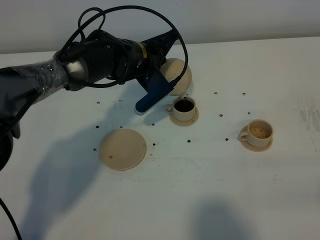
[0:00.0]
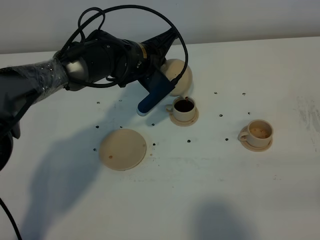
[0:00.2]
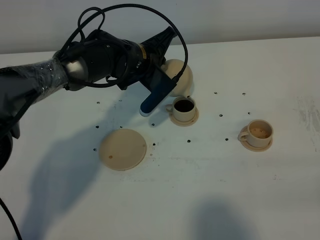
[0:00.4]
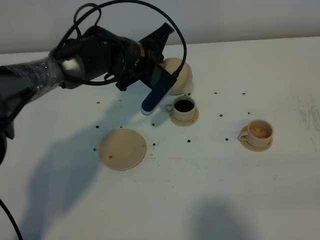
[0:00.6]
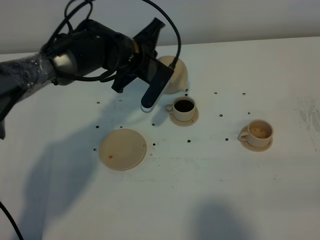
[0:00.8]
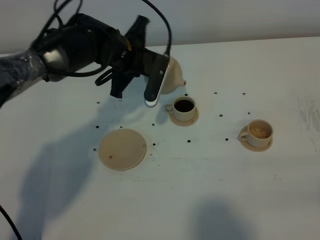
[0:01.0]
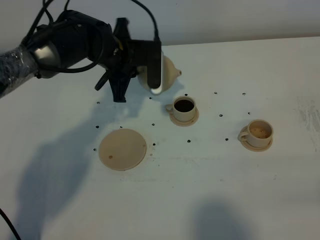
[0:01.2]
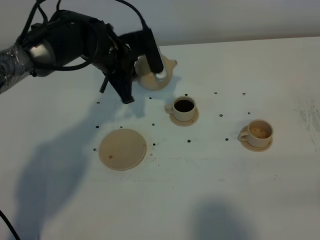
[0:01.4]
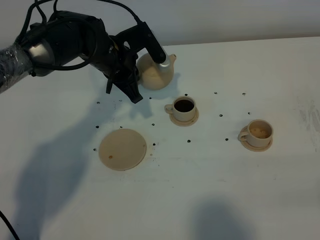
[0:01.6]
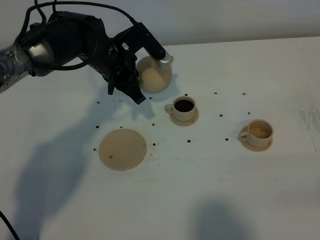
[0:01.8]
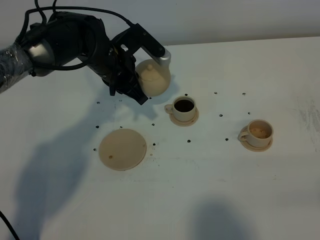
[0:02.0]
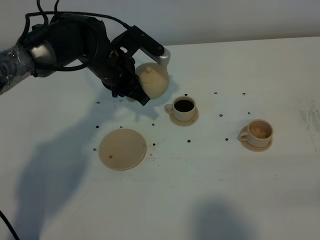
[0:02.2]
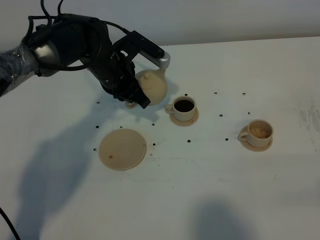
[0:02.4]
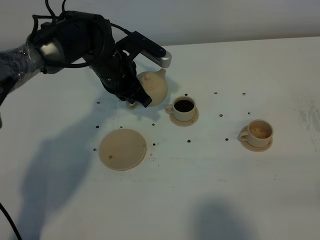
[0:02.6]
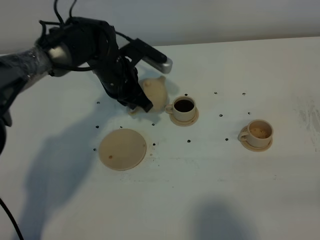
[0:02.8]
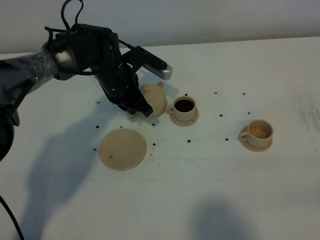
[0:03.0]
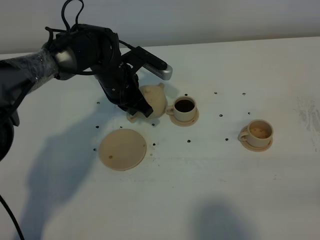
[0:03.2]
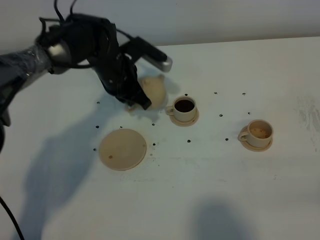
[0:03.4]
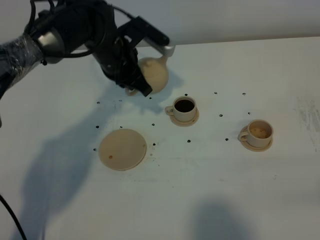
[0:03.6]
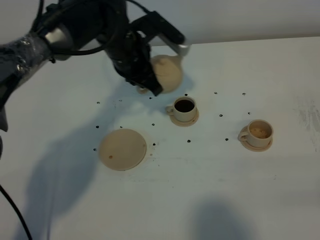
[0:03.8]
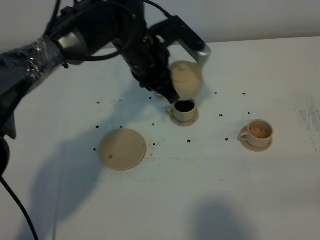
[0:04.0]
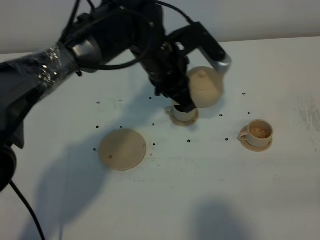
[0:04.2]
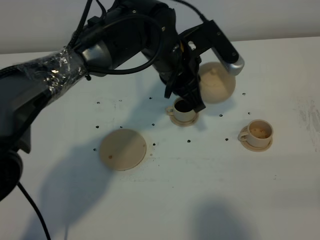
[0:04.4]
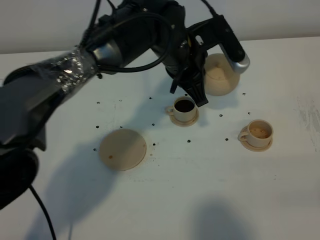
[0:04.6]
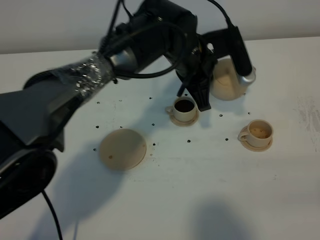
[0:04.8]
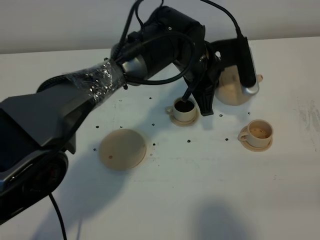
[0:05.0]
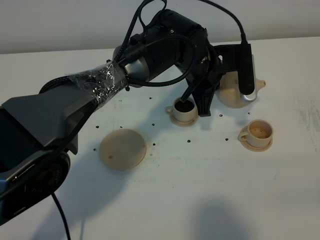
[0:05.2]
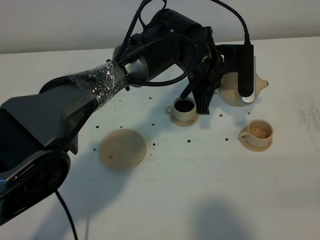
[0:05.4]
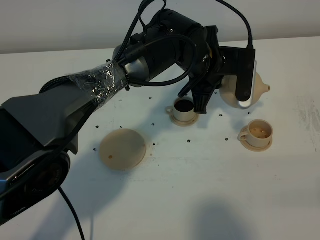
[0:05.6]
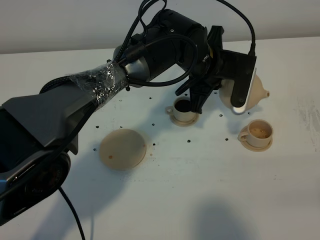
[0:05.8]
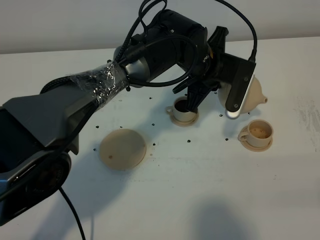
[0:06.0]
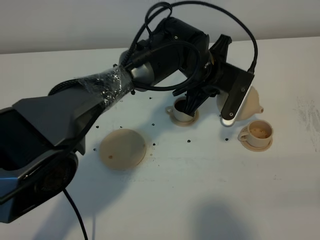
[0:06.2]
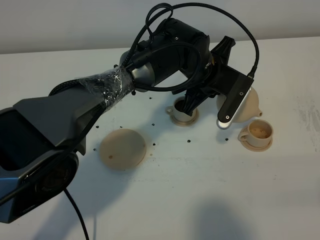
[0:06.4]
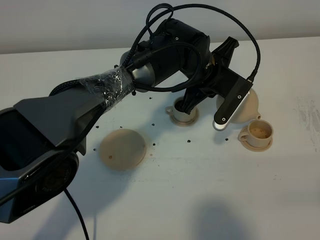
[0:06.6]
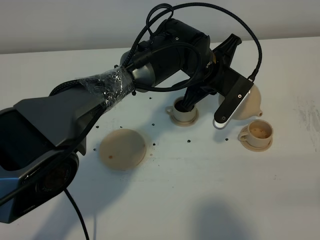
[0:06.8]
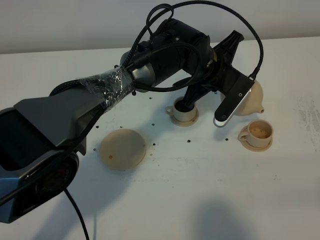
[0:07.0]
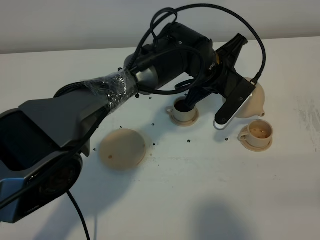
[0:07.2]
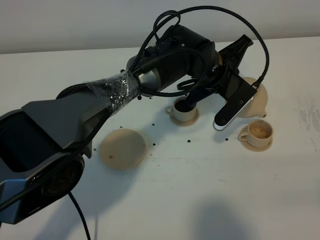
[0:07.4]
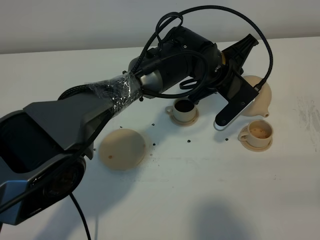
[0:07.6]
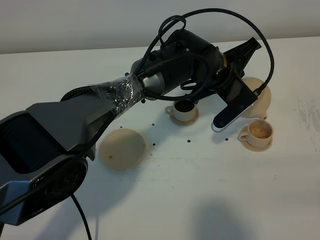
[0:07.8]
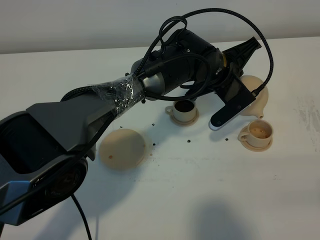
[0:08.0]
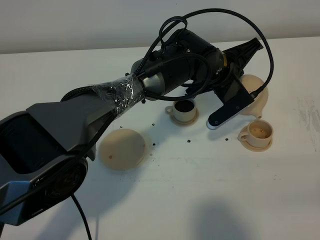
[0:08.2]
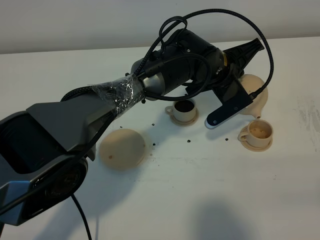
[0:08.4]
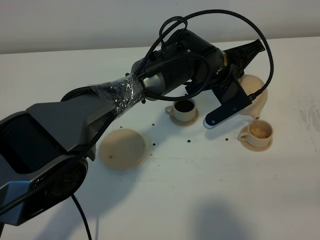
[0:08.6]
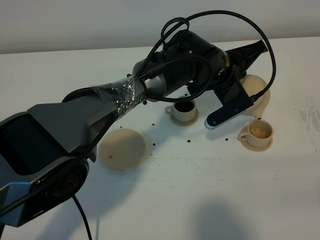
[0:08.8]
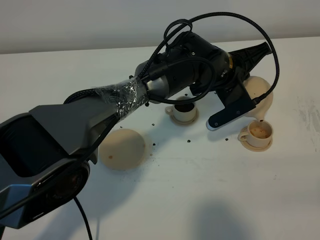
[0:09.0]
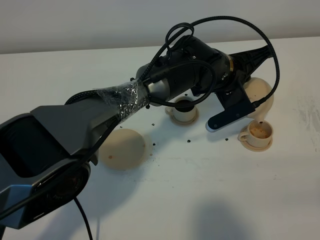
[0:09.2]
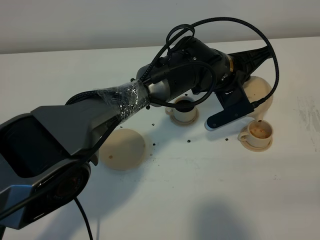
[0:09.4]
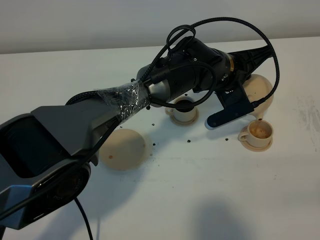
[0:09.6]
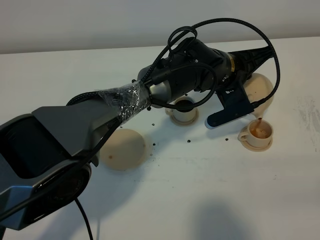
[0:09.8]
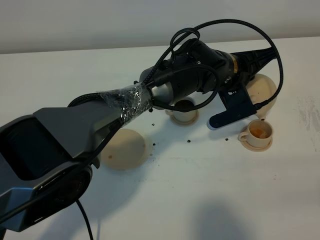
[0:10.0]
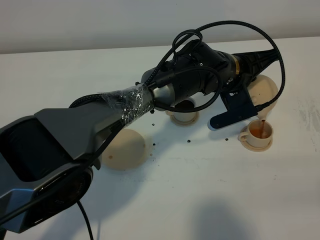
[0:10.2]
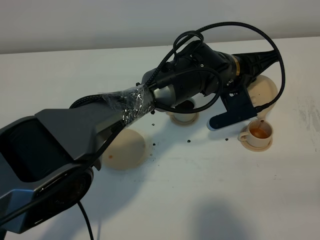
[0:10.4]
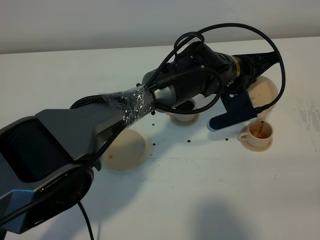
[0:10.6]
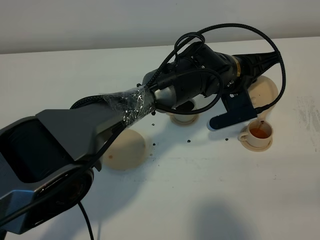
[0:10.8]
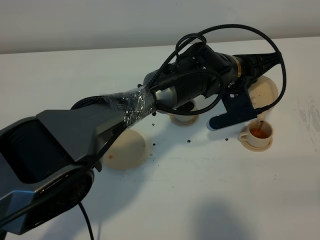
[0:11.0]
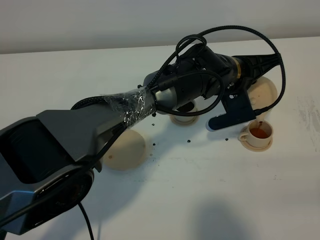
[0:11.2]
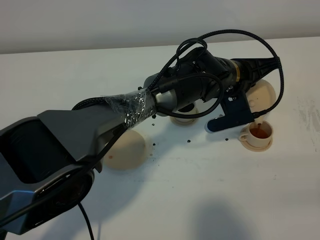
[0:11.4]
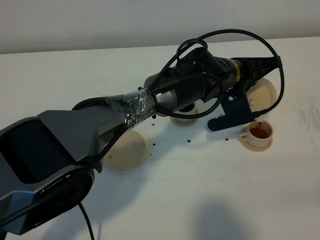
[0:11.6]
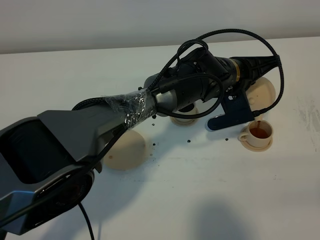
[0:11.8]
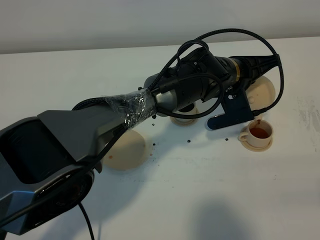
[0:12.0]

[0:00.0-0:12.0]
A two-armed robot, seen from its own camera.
Task of the whole recording: grasp the brown teapot and pour the tea into the two brown teacups one by one, put the brown teapot back in its original place.
0:00.0 to 0:01.6: The left gripper shifts by roughly 5 cm.
0:01.6 to 0:03.0: The left gripper moves downward, some 5 cm.
0:03.0 to 0:04.4: The left gripper travels to the right, upward and backward by approximately 15 cm.
0:04.4 to 0:06.0: The left gripper changes place by about 5 cm.
0:07.6 to 0:09.0: The grippers make only small movements.
0:09.0 to 0:10.4: The grippers move only a little.
0:10.4 to 0:12.0: Neither gripper changes place.

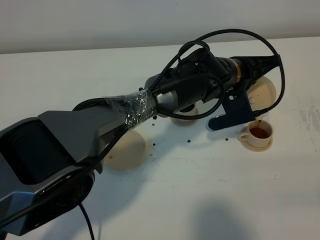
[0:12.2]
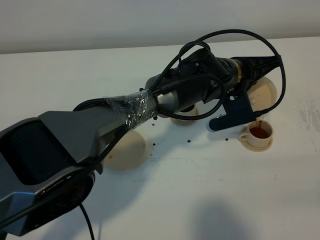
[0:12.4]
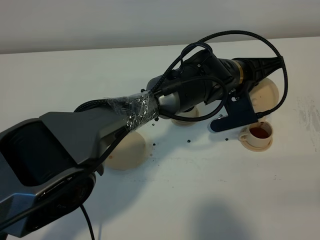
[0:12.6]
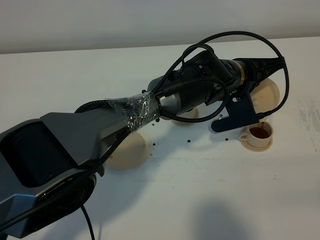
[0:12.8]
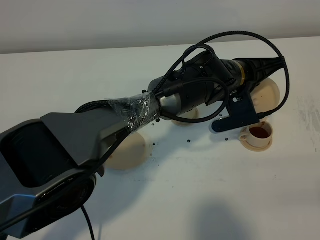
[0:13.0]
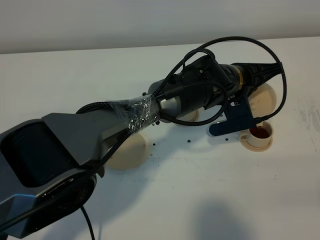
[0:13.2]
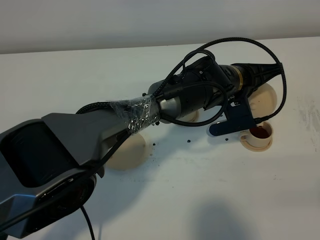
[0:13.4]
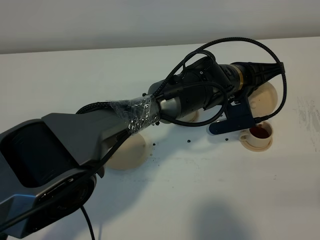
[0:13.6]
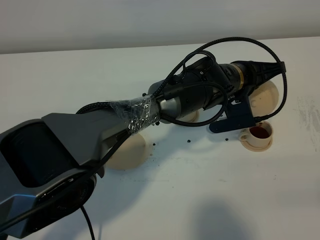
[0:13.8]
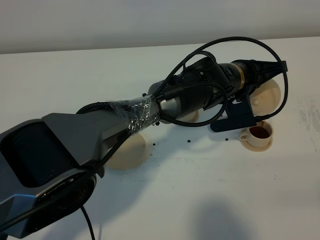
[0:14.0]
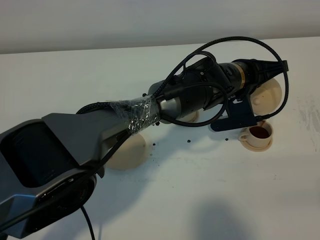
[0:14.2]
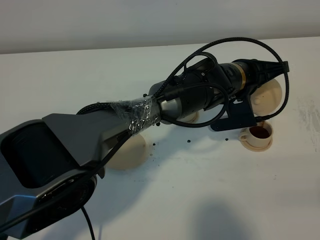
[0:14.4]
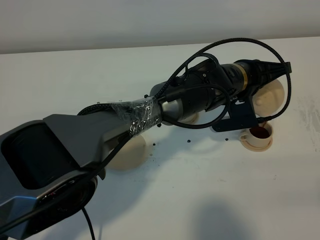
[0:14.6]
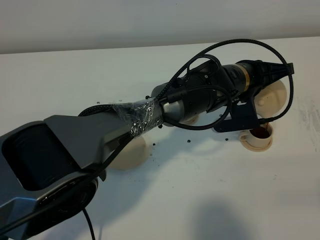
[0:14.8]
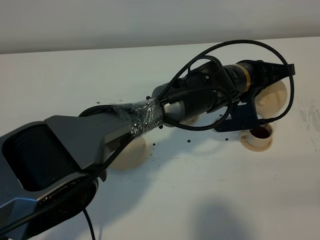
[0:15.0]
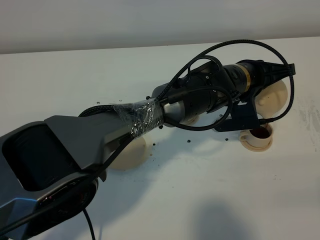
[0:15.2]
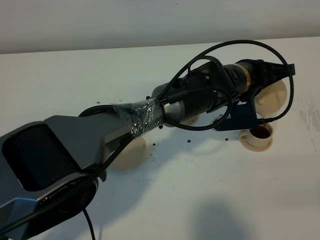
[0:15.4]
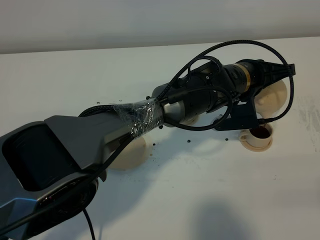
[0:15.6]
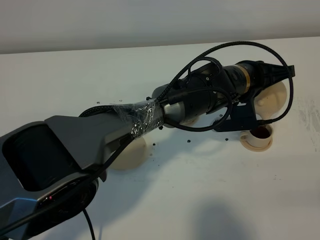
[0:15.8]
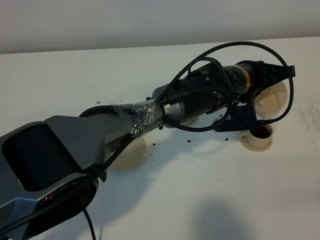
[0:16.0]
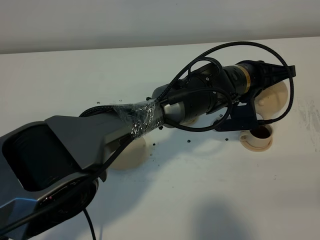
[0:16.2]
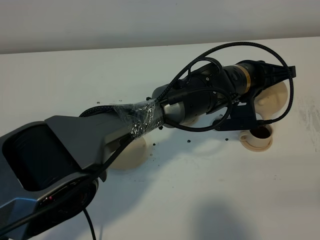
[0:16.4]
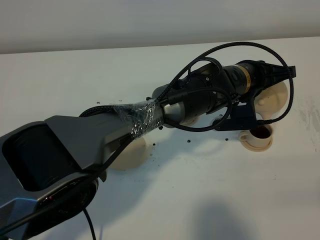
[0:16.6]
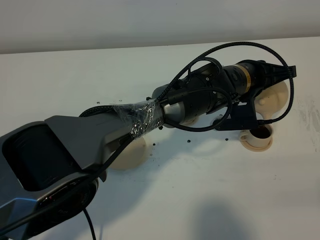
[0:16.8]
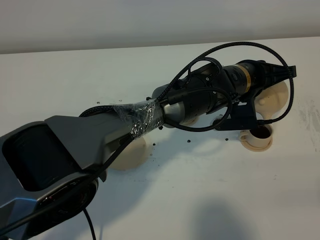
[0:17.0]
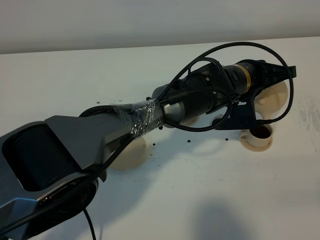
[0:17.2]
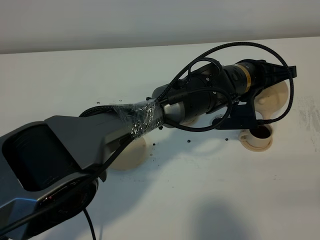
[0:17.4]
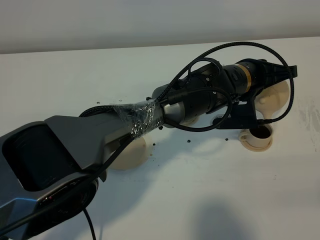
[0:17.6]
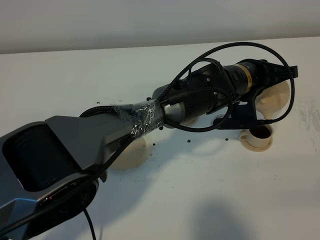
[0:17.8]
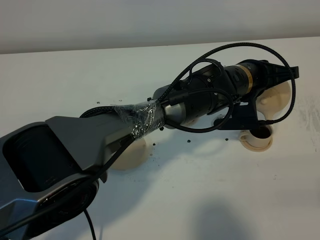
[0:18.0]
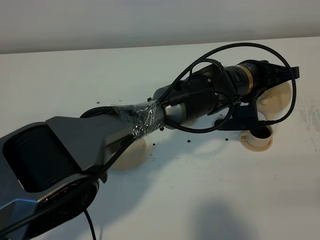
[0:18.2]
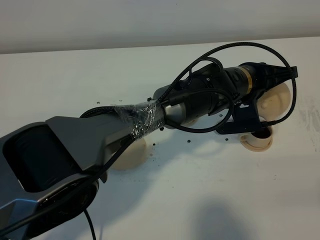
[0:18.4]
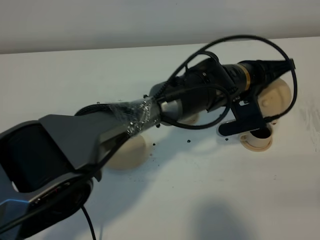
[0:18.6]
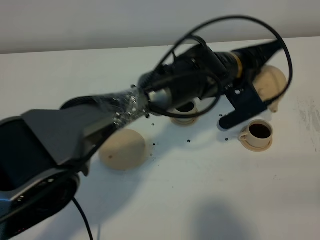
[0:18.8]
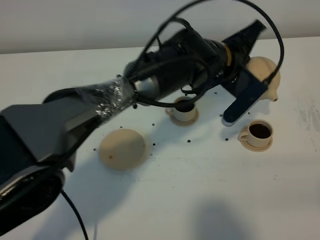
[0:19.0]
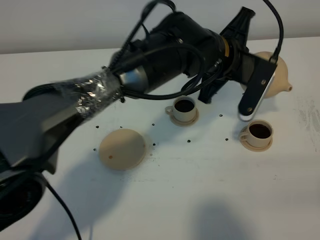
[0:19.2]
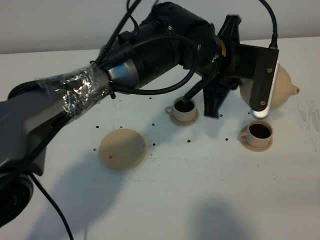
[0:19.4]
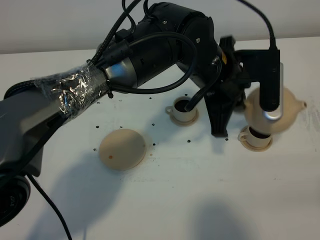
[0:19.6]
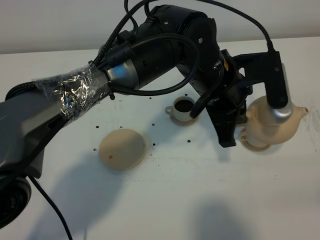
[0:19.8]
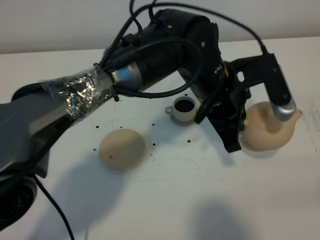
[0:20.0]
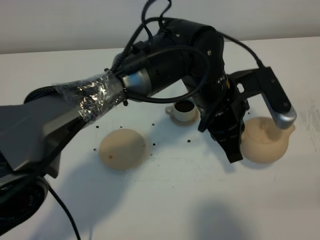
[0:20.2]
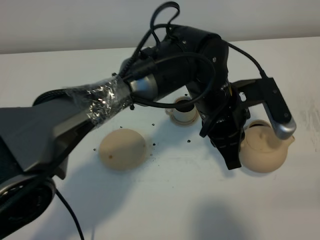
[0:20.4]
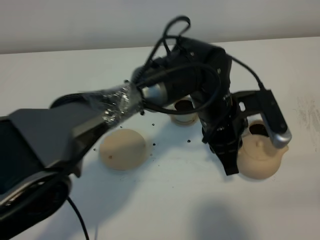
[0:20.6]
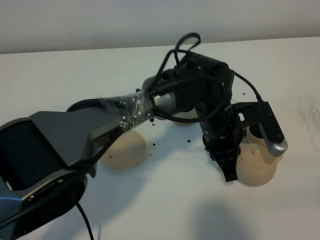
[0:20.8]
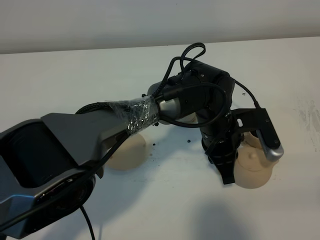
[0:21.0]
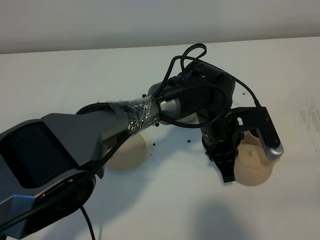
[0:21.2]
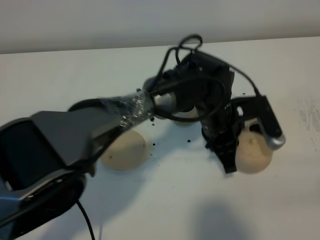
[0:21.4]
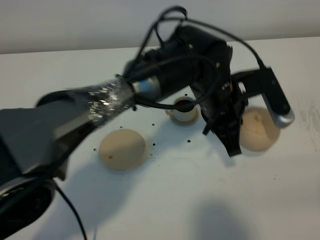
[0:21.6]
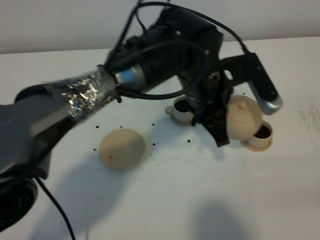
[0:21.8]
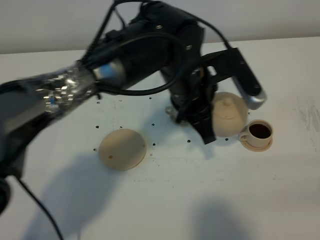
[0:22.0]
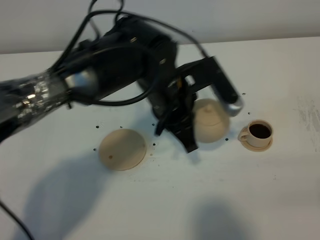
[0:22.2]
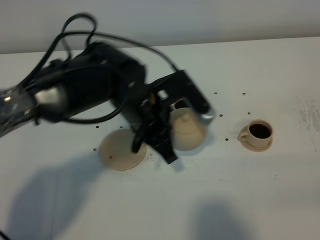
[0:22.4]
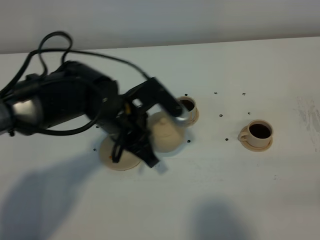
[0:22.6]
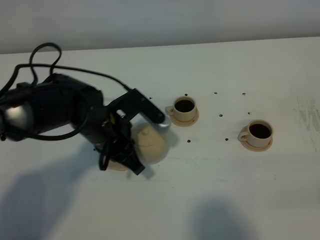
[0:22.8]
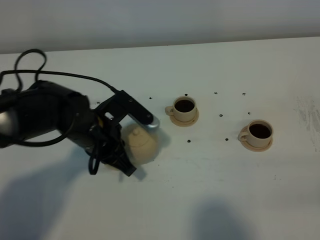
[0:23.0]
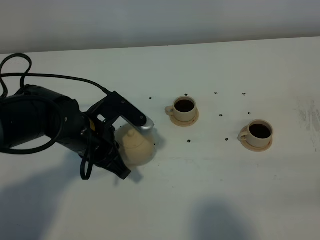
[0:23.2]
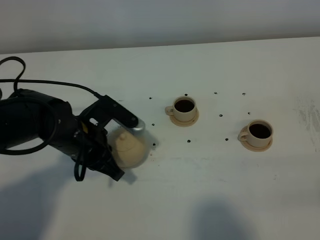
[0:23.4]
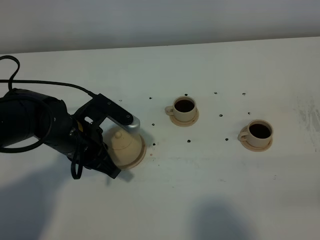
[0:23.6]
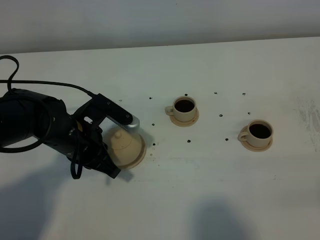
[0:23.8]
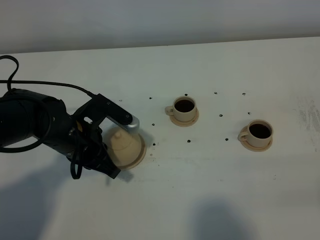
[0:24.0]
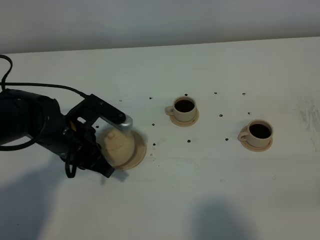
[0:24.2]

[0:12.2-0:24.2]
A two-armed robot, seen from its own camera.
Task of the whole recording: grasp the brown teapot and pour the tea into the two brown teacups one by one, put the brown teapot back in its original place.
Step, 0:12.2 to 0:18.6: Pour tea into the teacup with the left gripper.
0:12.2 to 0:13.8: Both grippers stay put.
0:13.8 to 0:15.2: The grippers make only small movements.
0:15.2 to 0:18.2: Both grippers stay put.
0:18.2 to 0:19.8: The left gripper travels upward, to the left and backward by about 10 cm.
0:19.8 to 0:21.2: The left gripper travels downward by approximately 10 cm.
0:21.2 to 0:22.6: The left gripper goes about 20 cm to the left.
0:22.6 to 0:24.2: The left gripper goes roughly 10 cm to the left.
